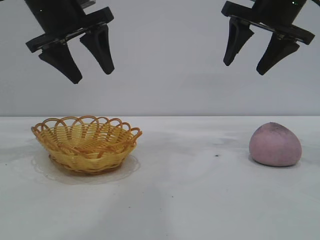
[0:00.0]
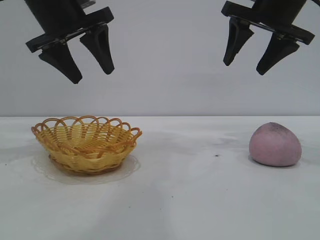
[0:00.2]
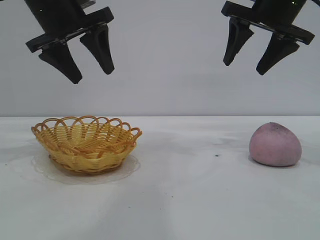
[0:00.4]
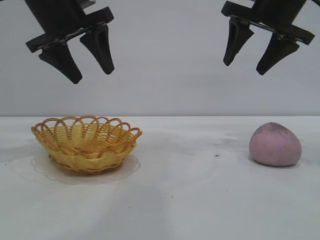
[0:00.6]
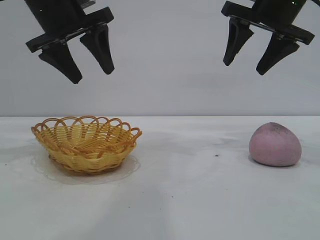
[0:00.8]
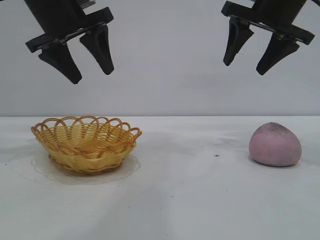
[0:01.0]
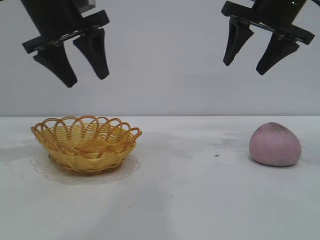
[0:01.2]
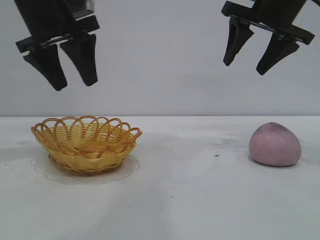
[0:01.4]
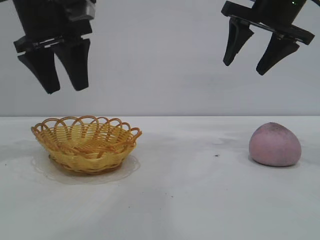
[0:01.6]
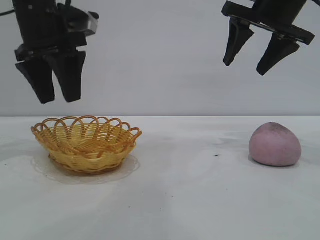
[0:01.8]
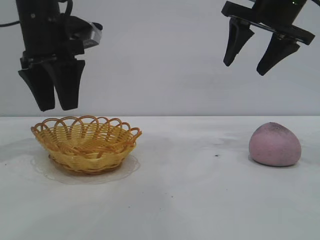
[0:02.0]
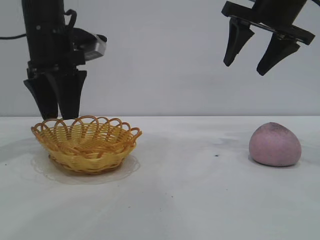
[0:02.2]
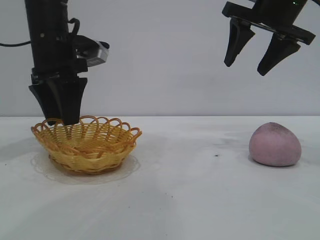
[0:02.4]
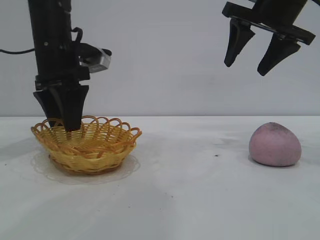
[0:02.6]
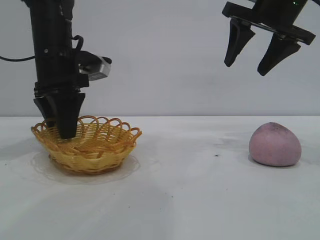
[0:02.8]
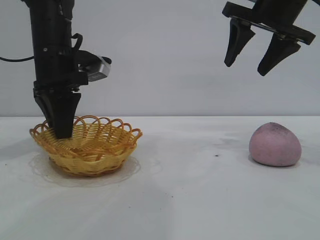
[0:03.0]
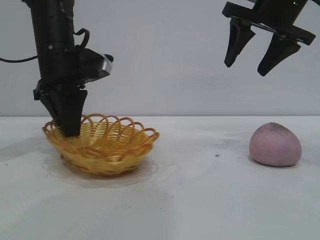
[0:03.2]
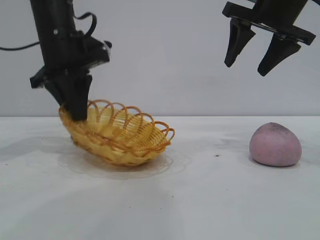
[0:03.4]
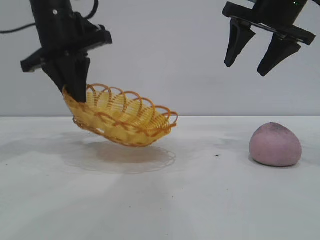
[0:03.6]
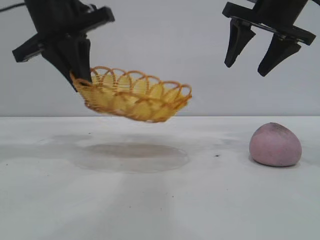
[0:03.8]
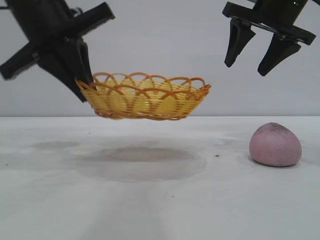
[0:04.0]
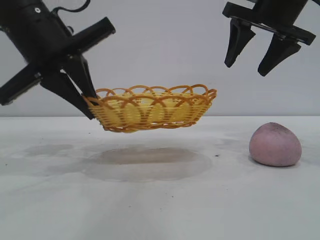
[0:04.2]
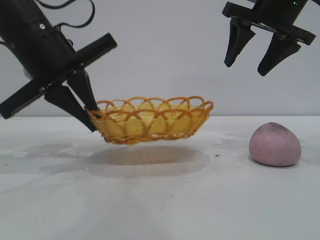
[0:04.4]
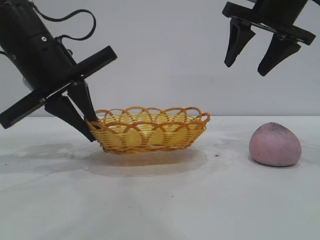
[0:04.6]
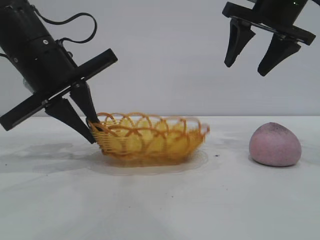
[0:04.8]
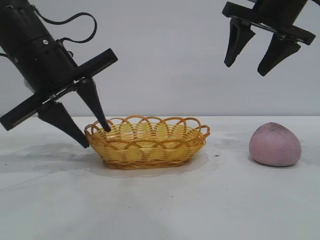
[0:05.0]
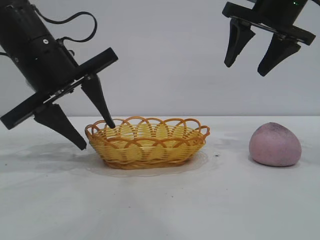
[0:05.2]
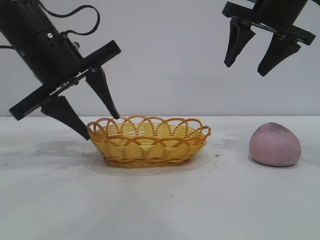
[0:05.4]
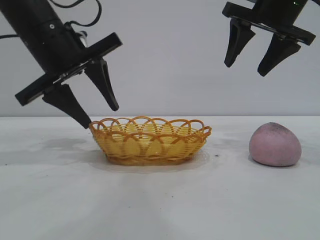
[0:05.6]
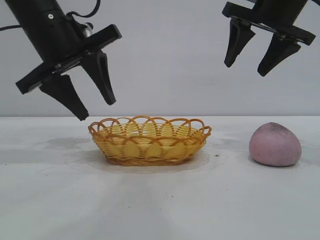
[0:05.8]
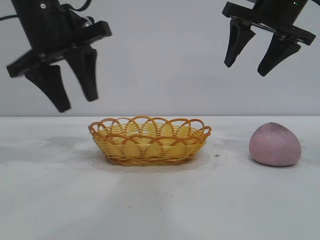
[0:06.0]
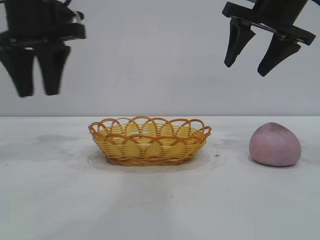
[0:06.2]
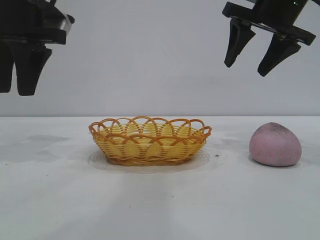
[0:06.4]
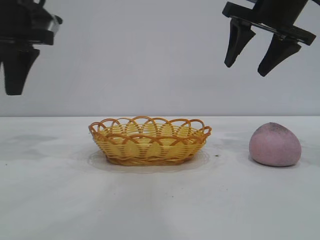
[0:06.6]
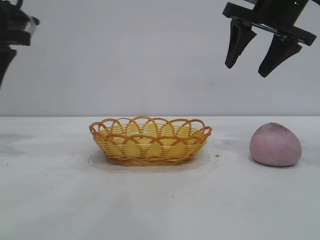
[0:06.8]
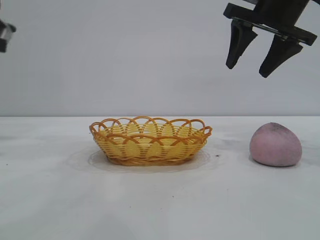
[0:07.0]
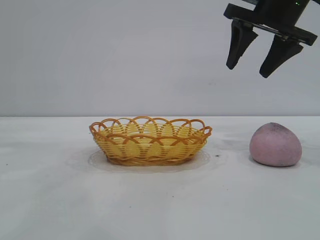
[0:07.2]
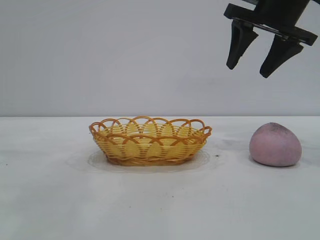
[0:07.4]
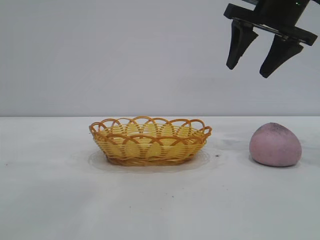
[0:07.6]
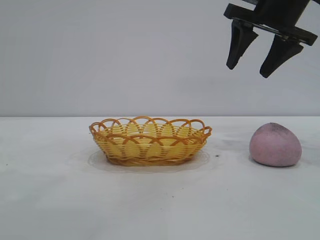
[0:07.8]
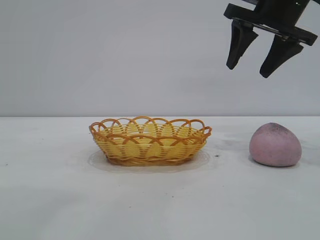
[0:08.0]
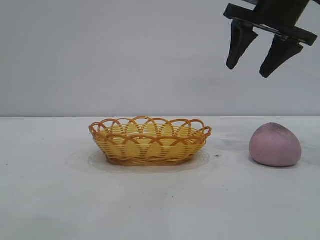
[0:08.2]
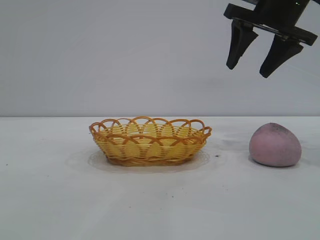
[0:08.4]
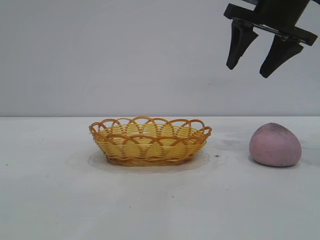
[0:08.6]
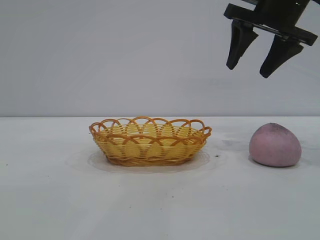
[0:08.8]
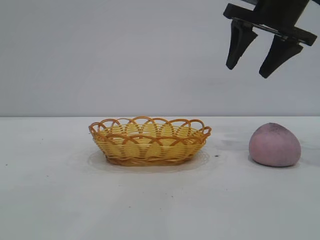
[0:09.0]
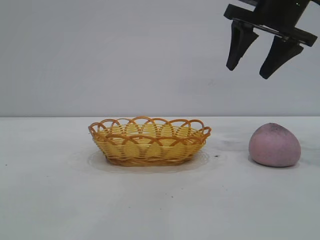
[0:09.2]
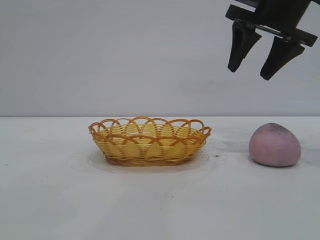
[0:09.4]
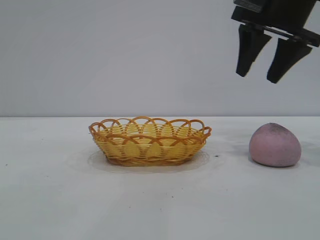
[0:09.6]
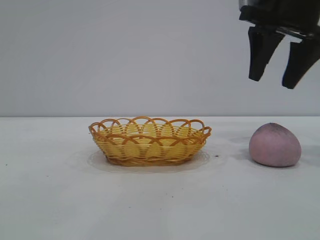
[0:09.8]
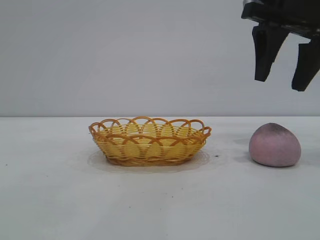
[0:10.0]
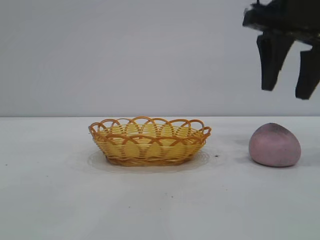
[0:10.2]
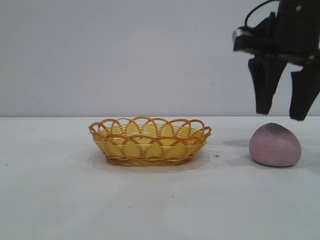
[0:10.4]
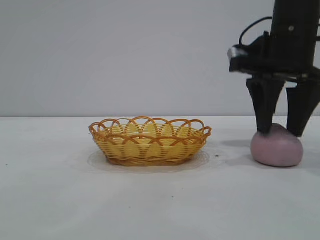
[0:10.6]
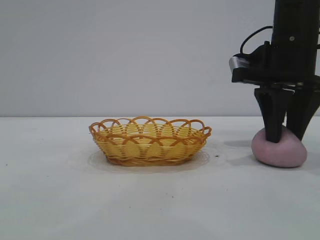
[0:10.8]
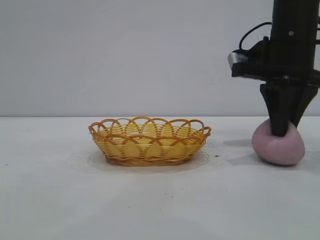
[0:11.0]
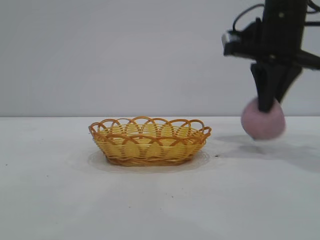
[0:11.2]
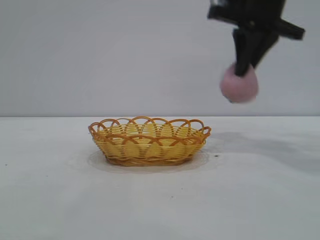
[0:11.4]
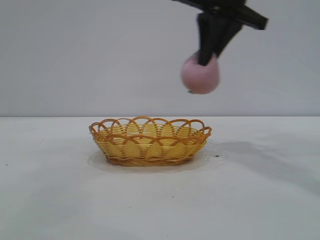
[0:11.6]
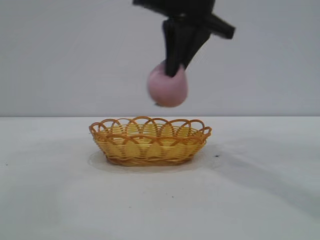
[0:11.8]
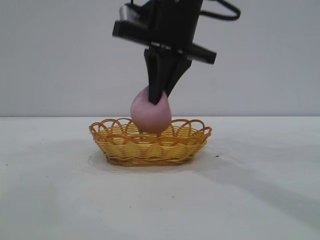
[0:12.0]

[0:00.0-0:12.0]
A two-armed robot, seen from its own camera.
Task of the whole recording: pick up the peach and put it into the basket.
Step, 0:00.0 to 0:06.0: Move the basket to the center of view.
Step, 0:06.2 to 0:11.2: Pick up the peach.

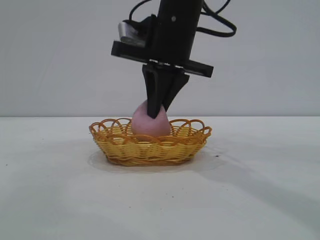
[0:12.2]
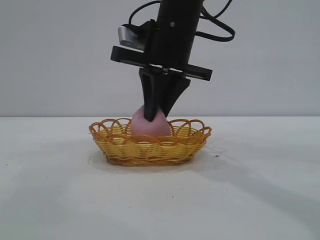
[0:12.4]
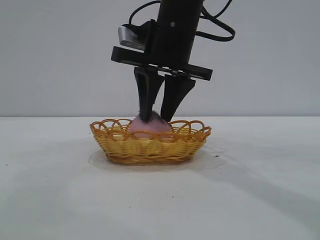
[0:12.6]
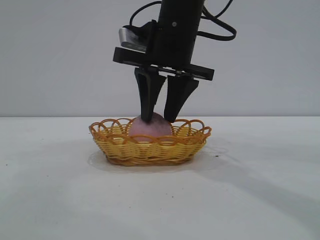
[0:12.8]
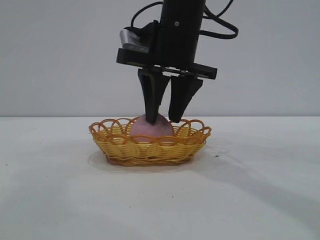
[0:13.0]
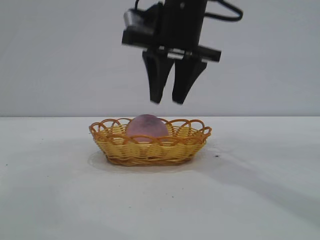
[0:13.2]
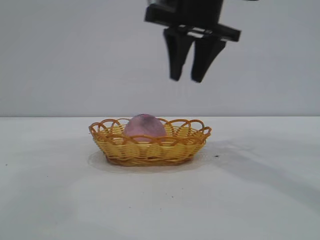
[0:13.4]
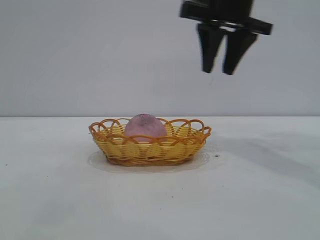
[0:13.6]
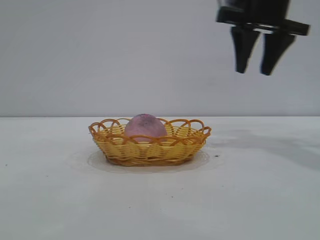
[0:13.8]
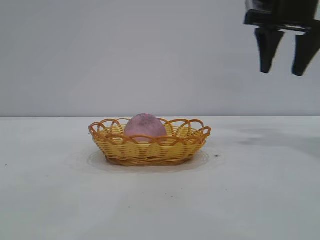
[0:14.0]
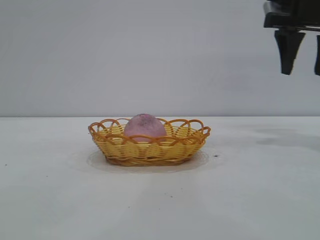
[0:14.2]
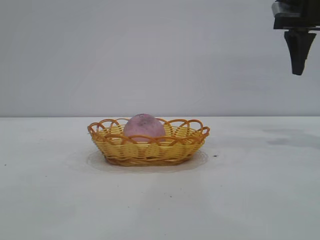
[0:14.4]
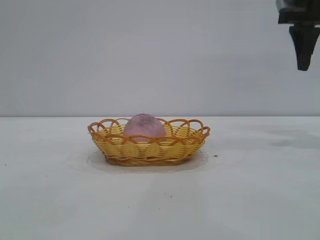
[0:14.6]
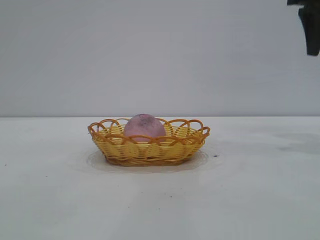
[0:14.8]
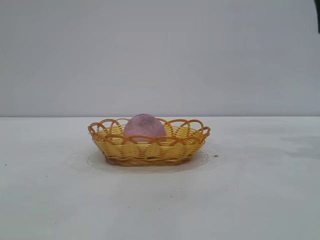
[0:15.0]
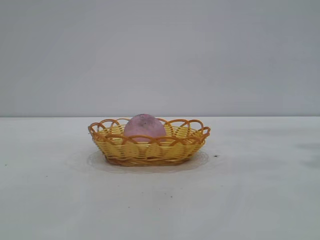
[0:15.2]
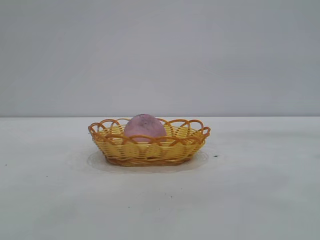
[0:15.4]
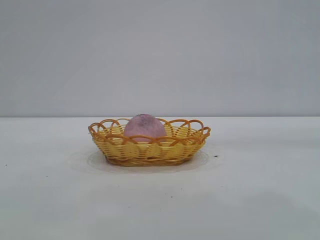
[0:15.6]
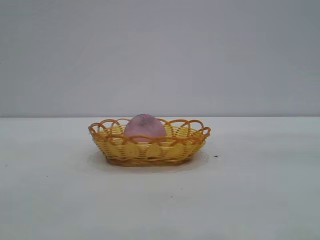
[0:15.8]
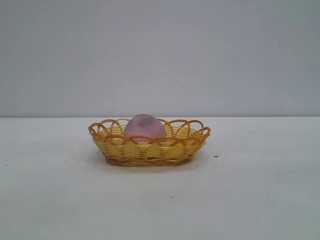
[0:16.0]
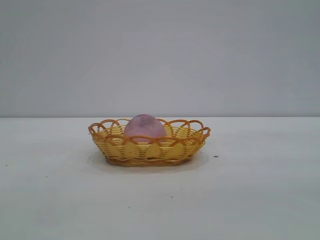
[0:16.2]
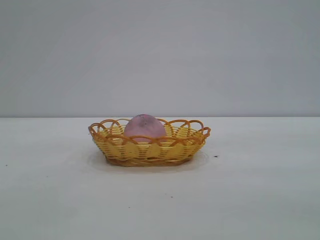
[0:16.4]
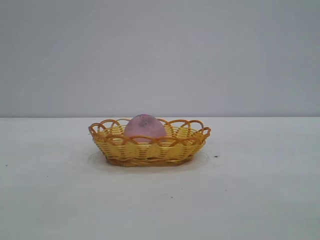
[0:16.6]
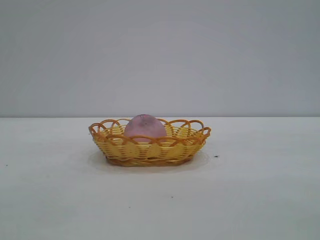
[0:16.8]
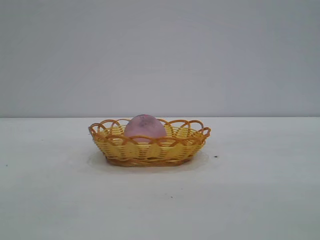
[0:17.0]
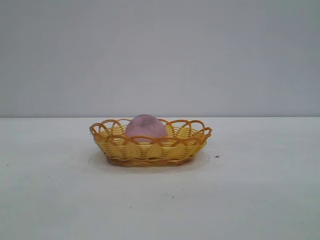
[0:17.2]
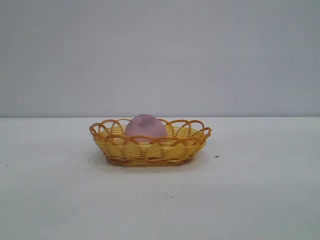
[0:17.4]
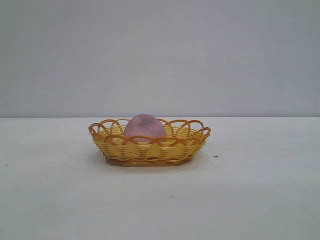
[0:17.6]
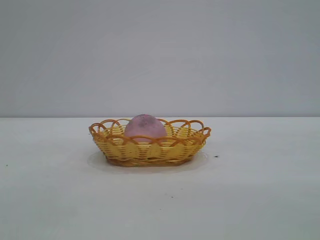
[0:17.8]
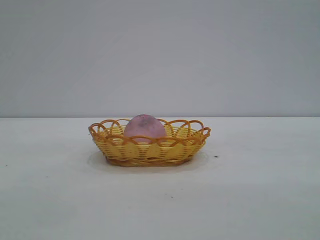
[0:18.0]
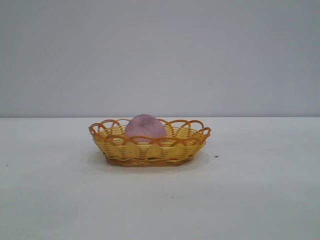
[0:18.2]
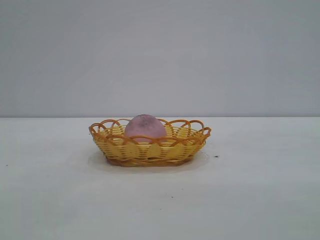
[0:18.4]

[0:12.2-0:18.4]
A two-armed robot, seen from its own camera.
Task of the whole recording: pick up the peach and put it into the basket.
Step, 0:12.2 to 0:13.4: place the peach into the basket.

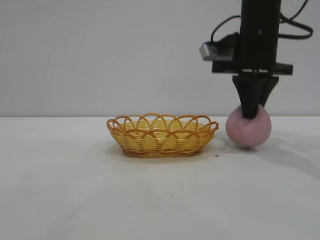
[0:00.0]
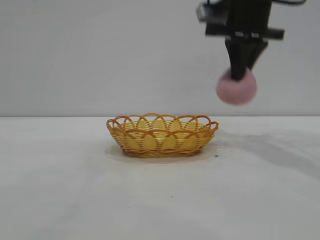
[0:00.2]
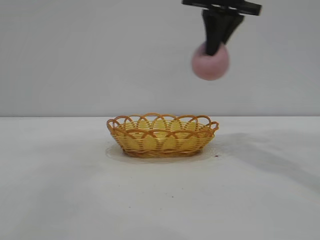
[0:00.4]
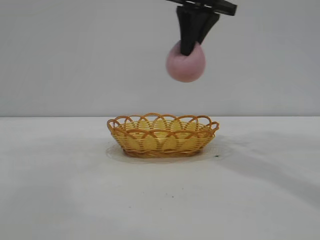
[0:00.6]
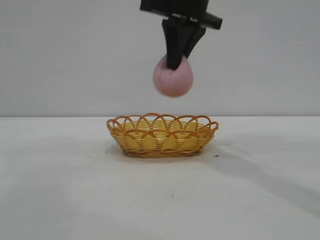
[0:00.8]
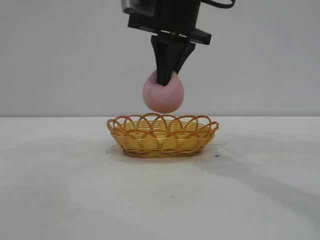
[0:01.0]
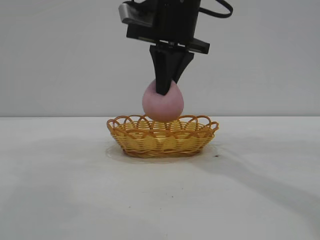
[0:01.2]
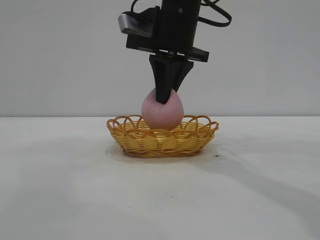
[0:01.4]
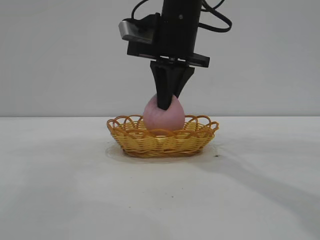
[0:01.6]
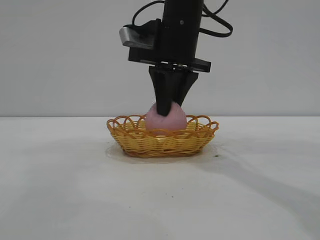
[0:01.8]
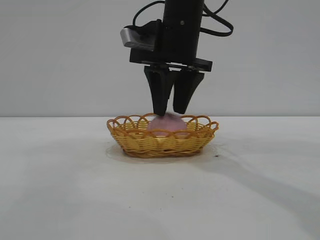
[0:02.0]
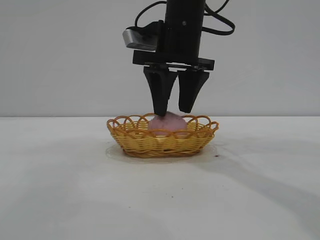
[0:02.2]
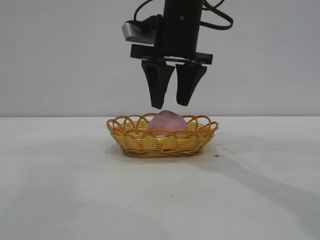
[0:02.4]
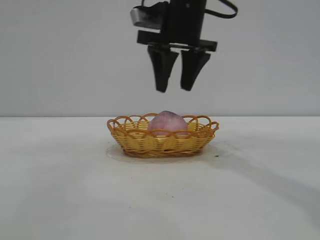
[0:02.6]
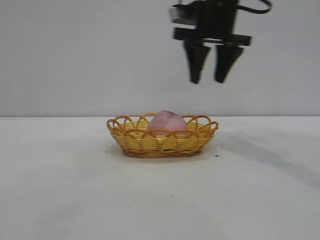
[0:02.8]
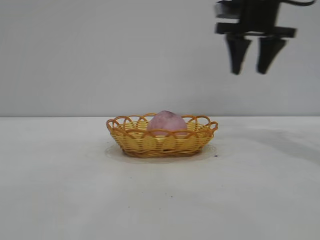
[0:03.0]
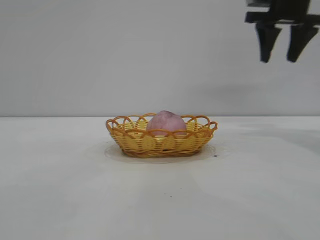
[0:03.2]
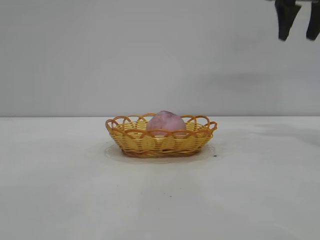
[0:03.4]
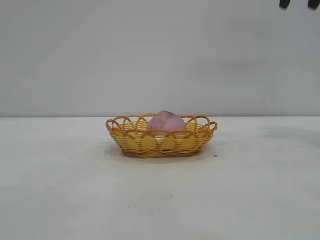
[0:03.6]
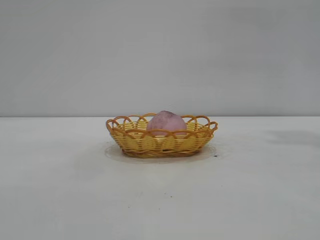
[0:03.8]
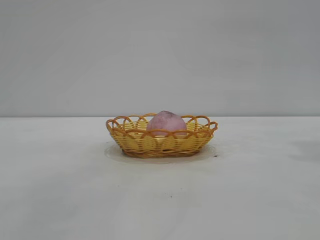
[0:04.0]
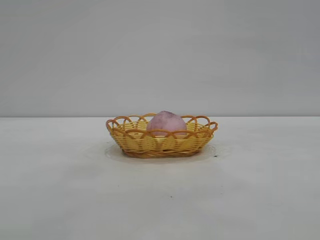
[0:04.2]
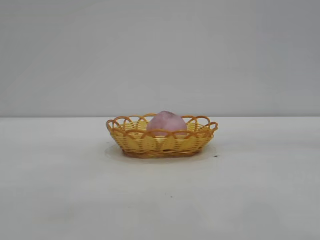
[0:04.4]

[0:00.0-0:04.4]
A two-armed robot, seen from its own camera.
Task of the whole recording: pick up the peach and put it into the basket.
Step, 0:00.2 to 0:02.4: place the peach into the basket.
